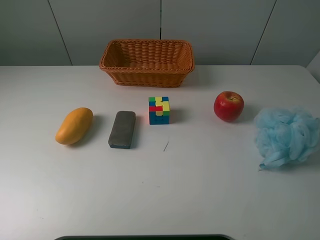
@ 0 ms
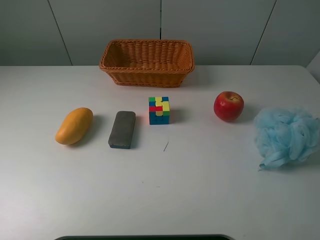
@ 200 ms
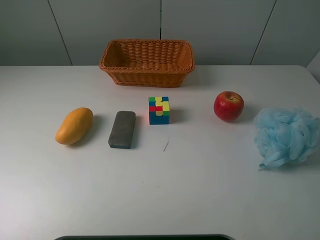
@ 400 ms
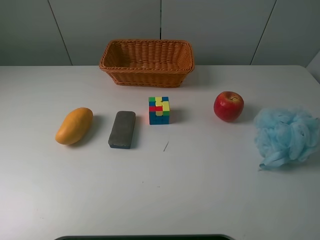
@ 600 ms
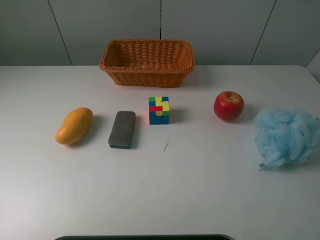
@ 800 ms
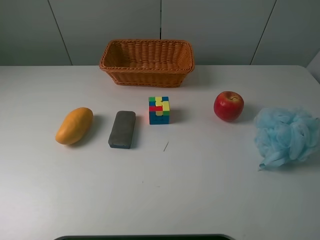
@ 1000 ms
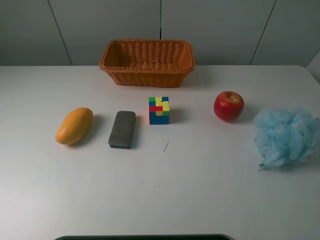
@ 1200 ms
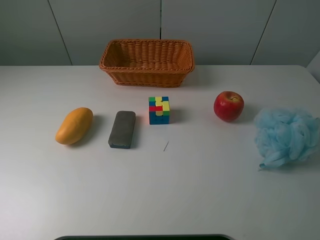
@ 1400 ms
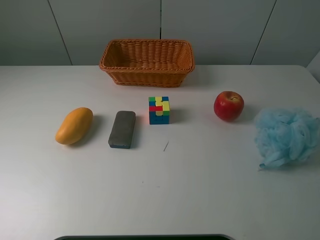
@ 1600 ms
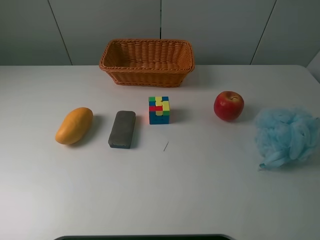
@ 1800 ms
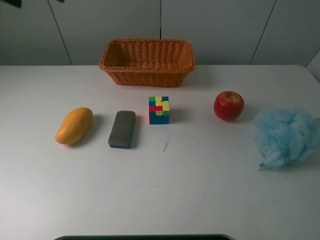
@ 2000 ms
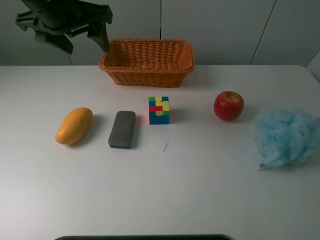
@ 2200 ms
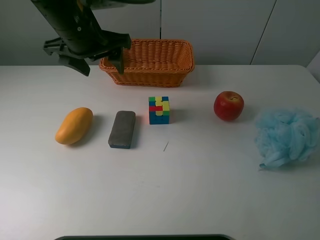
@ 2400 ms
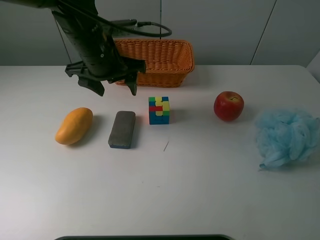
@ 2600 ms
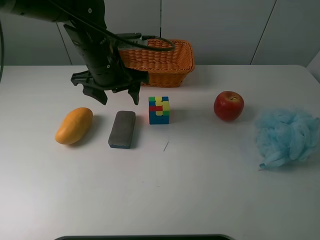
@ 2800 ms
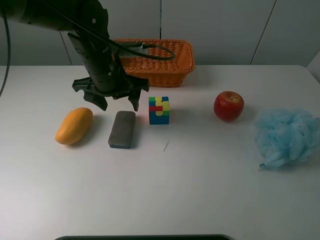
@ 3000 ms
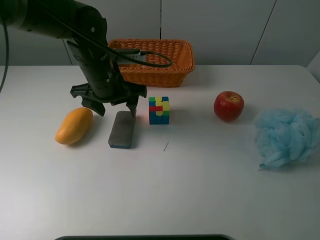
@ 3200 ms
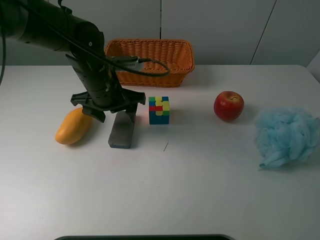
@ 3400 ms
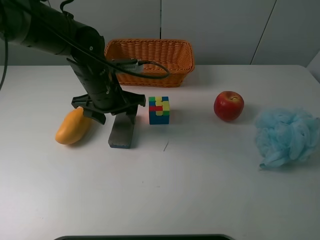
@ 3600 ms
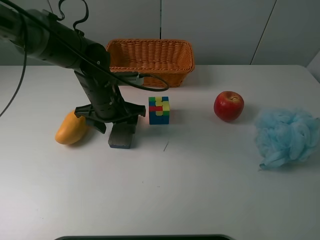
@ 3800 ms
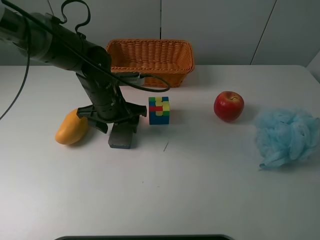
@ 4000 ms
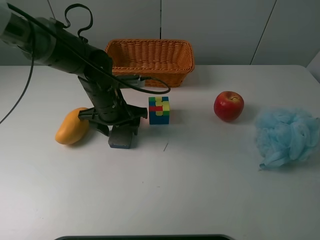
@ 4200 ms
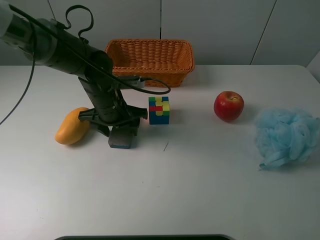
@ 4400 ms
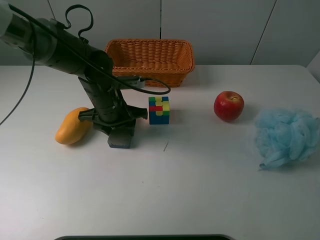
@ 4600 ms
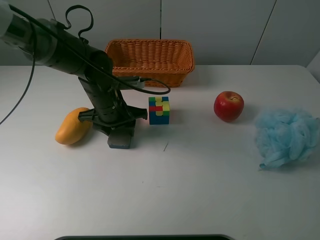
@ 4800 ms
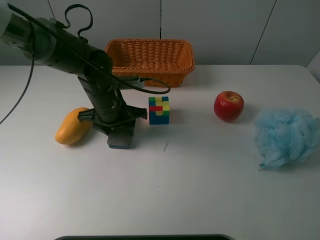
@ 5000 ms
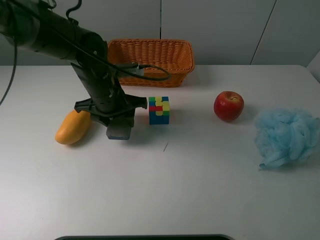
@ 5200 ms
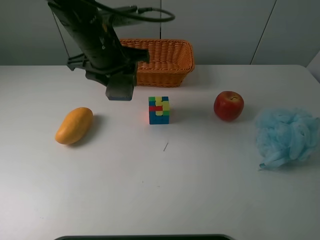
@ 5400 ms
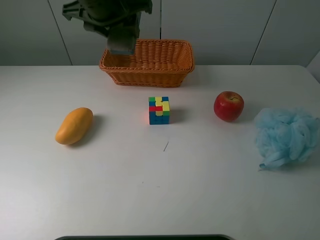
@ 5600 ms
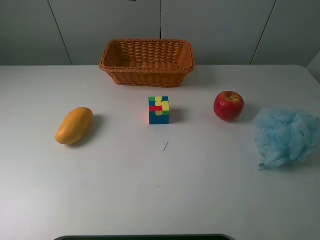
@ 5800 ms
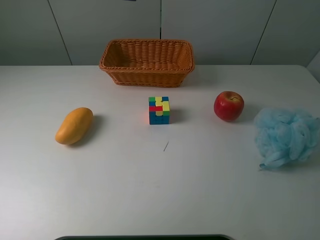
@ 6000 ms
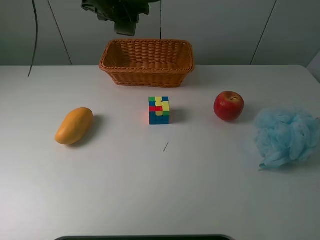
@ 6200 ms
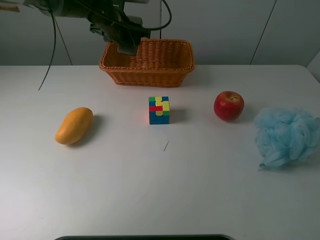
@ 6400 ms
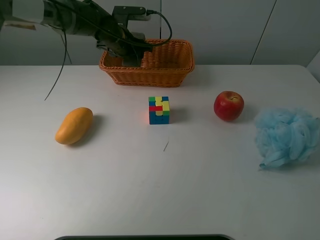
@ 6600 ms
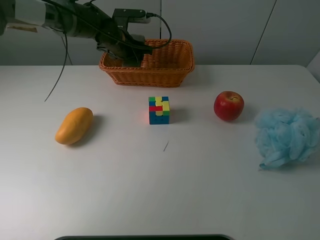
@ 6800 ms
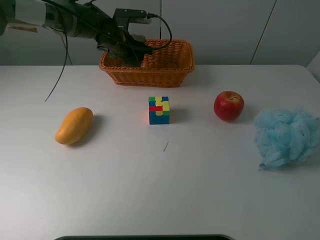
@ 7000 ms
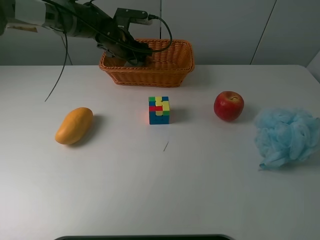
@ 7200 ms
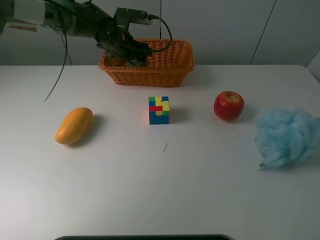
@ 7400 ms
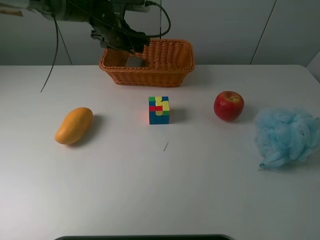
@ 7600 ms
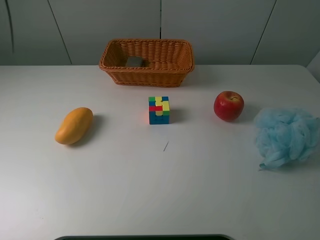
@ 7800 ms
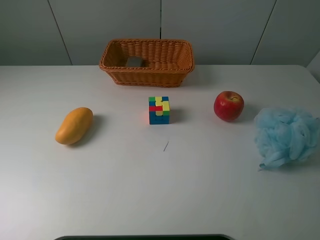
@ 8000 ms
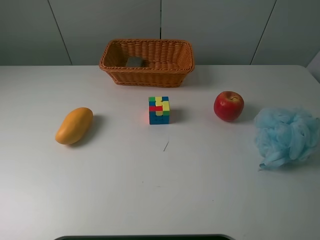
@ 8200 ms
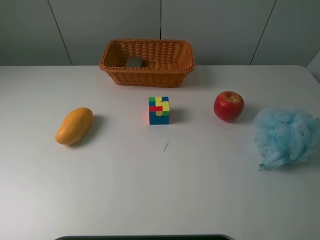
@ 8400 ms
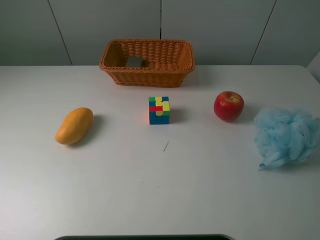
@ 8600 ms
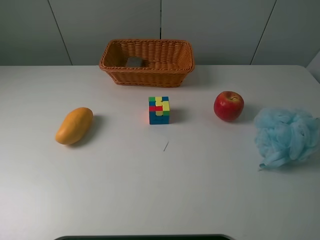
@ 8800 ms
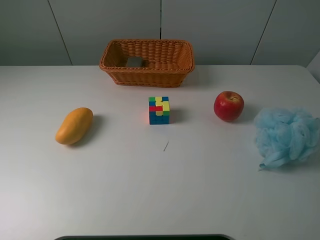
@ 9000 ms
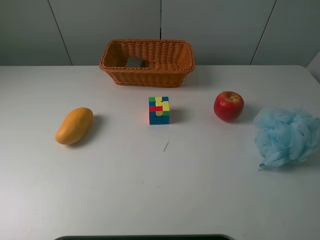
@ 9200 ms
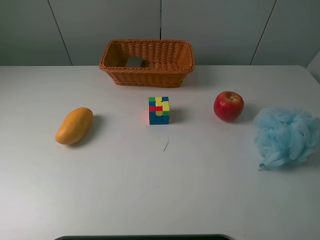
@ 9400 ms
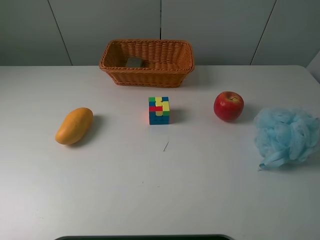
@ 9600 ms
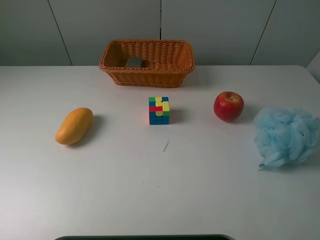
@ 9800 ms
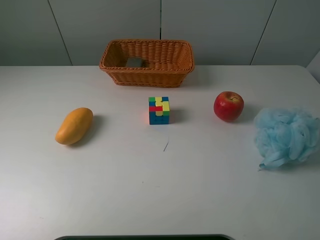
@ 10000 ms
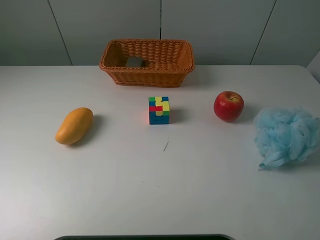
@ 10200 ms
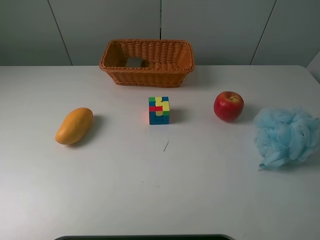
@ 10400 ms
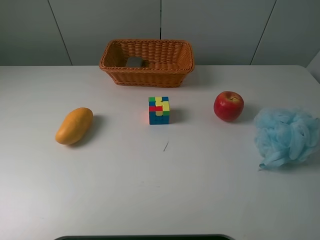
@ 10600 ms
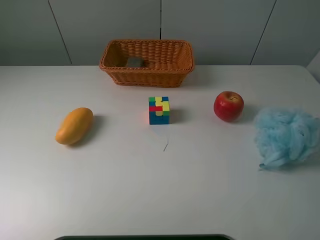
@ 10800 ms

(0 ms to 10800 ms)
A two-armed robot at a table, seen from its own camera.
Task of the whole recording: use a picker to grab the item closest to the cube and place it in the basket.
Step, 0 ms - 4400 ms: Grasp the blackboard erasure with the left gripper.
Step, 4600 ms - 7600 ms: Place the blackboard erasure into the basket with the left gripper.
1600 ms - 3000 ms: The left gripper moves downward, to the right and forward, roughly 35 cm.
3000 ms - 4600 ms: The left gripper is displaced downward by about 10 cm, and closes up.
4600 ms - 6200 ms: The left gripper is displaced forward and upward by some 20 cm.
6200 ms - 7800 ms: The left gripper travels upward by some 10 cm, and opens up.
